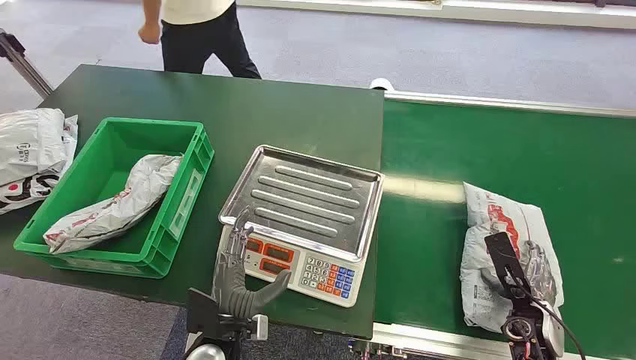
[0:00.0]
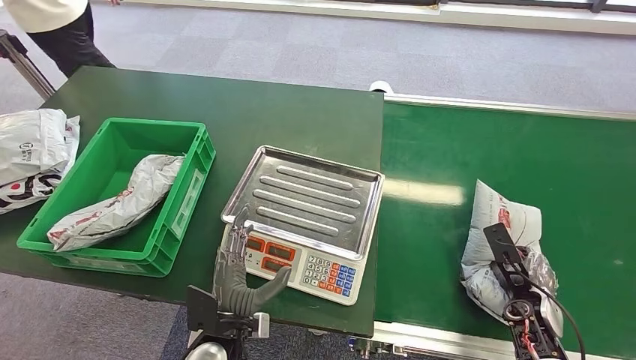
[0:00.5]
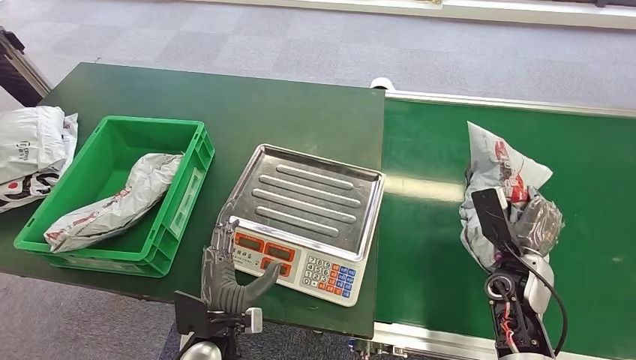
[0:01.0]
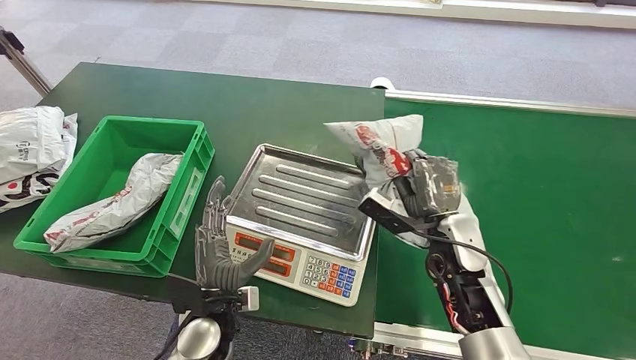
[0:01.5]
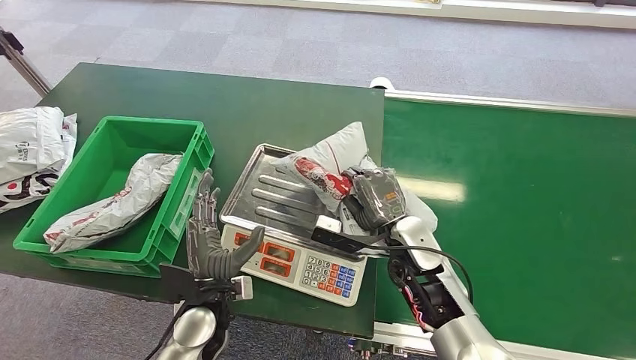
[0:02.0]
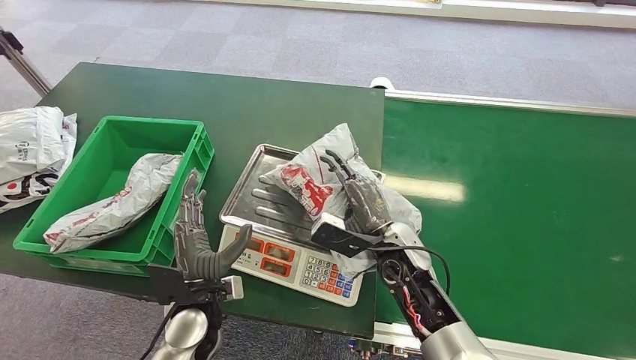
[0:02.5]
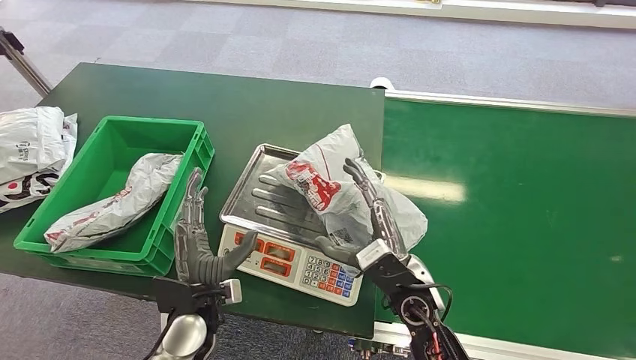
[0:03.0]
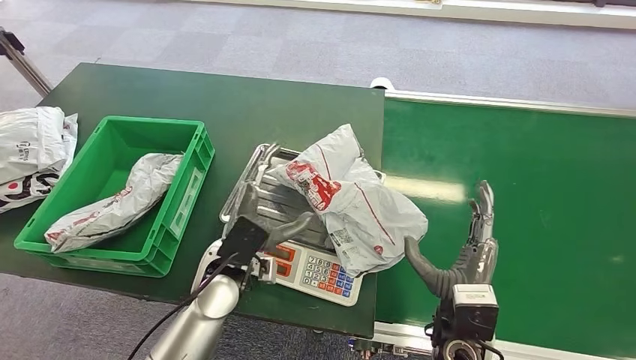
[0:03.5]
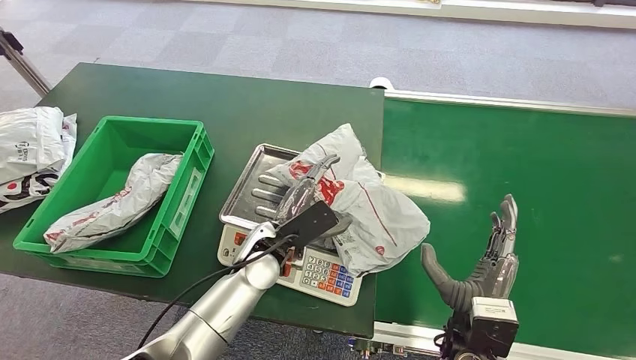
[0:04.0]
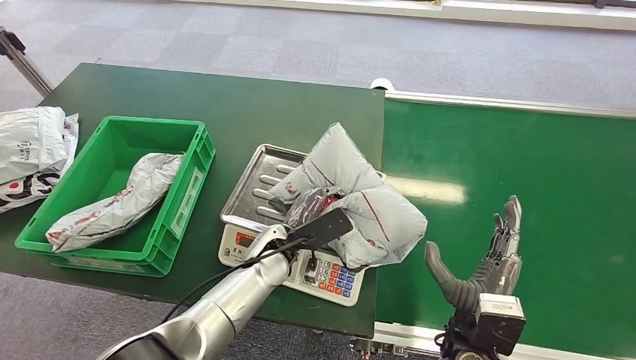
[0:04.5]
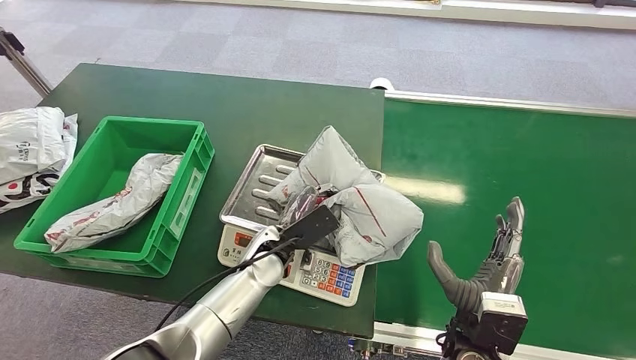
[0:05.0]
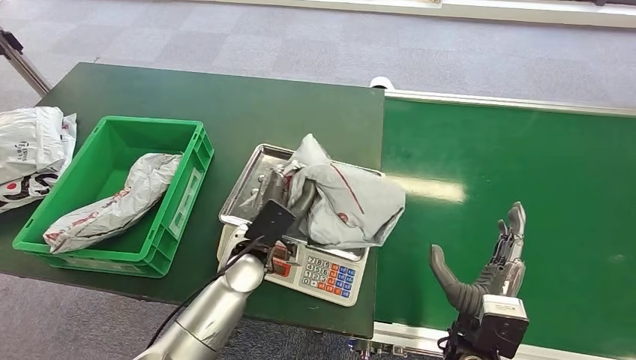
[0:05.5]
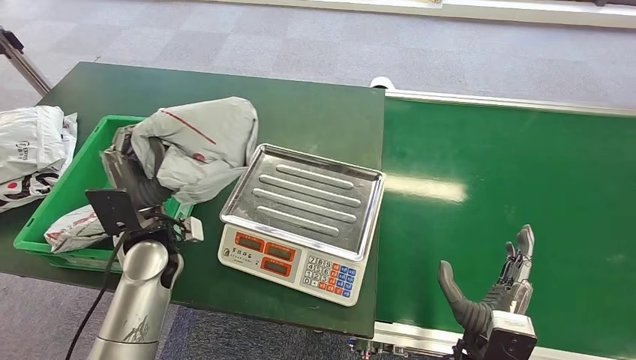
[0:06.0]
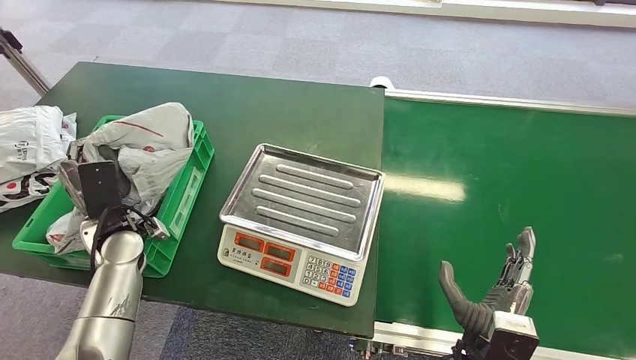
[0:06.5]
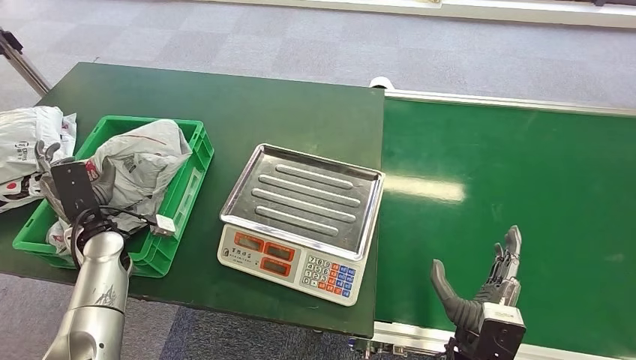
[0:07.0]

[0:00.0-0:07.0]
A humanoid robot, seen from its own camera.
Step, 0:00.0 to 0:01.0: Pick up the package from the conveyor belt.
Step, 0:02.0 to 0:02.5: Place the package onto the inbound machine.
Step, 0:04.5 to 0:05.5: Pick up the package from the inbound machine.
Step, 0:06.5 to 0:07.0: Place the package into the parcel locker.
0:02.0 to 0:03.5: The left hand travels upward by about 5 cm; the right hand shifts roughly 15 cm backward and to the right.
0:03.5 to 0:05.0: The left hand is displaced forward by approximately 5 cm.
